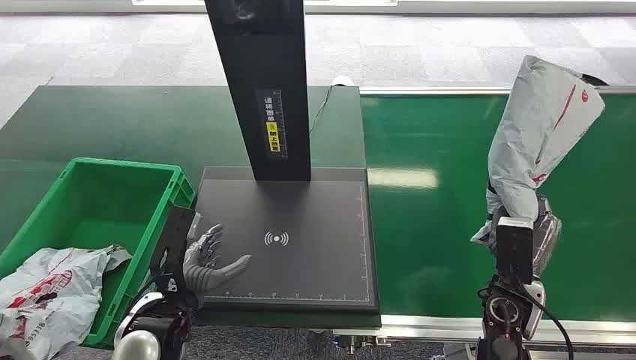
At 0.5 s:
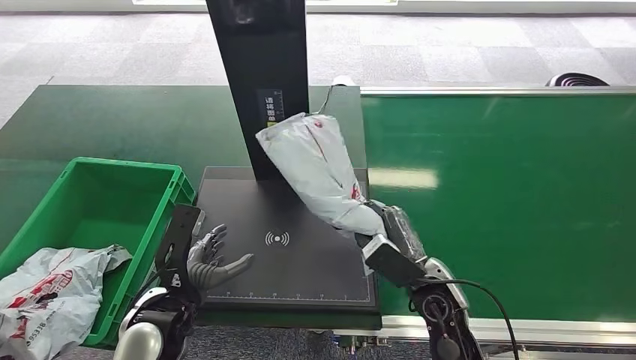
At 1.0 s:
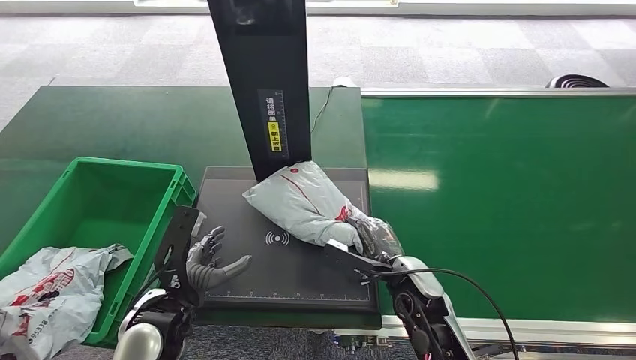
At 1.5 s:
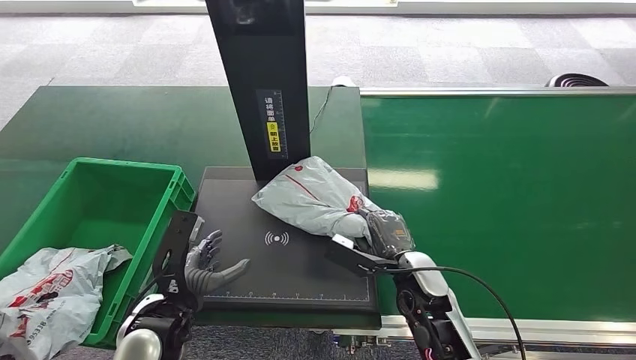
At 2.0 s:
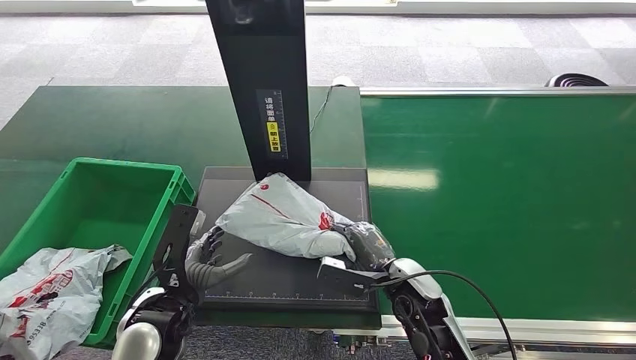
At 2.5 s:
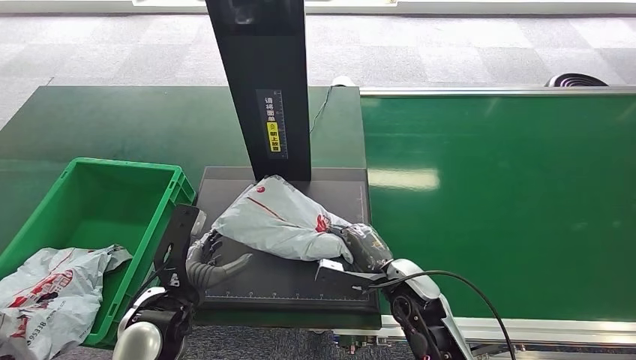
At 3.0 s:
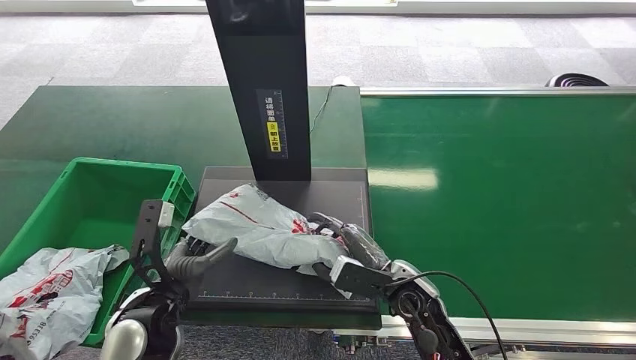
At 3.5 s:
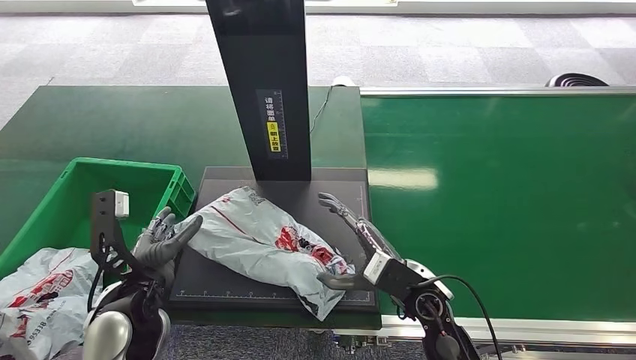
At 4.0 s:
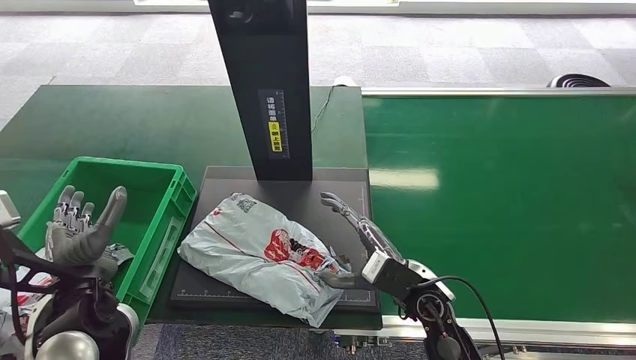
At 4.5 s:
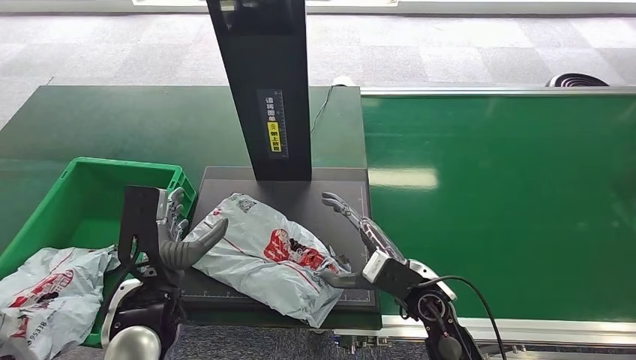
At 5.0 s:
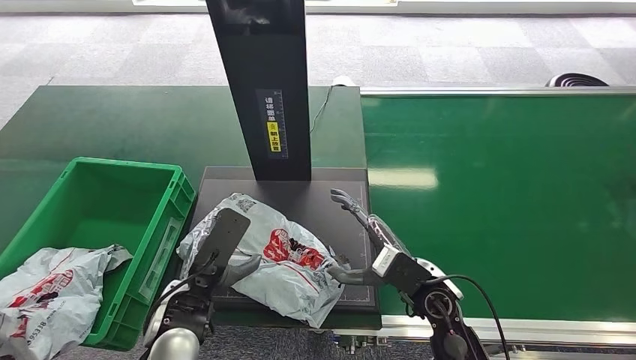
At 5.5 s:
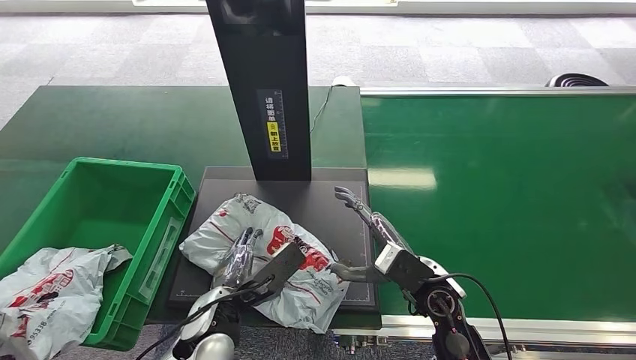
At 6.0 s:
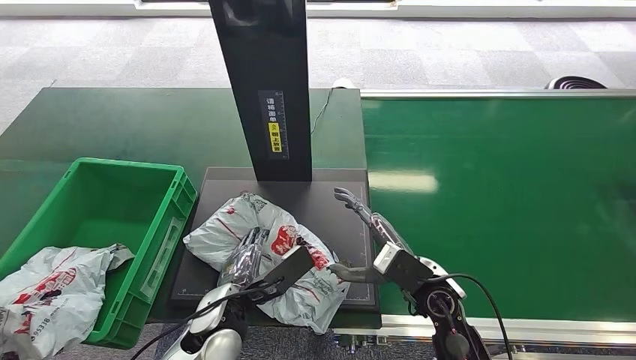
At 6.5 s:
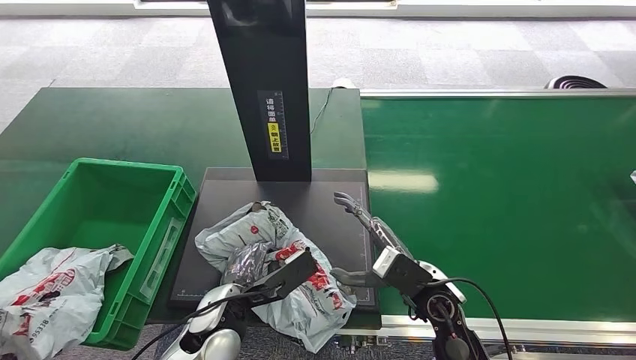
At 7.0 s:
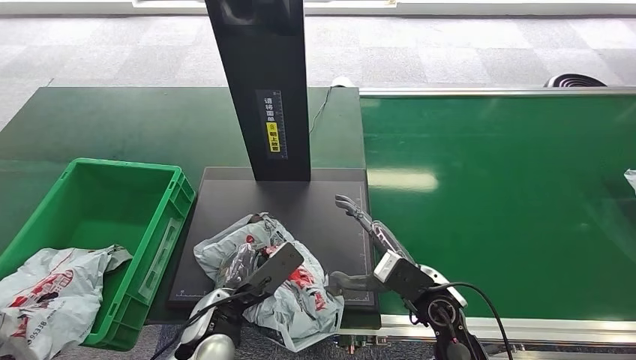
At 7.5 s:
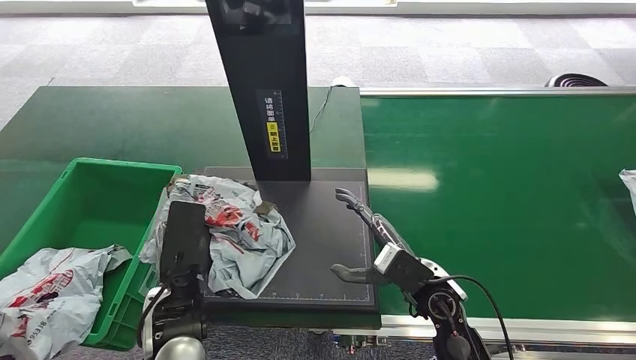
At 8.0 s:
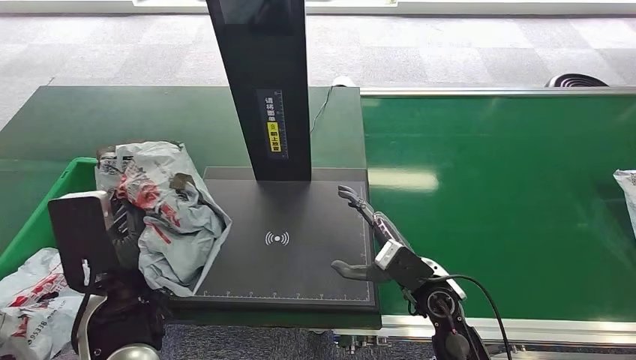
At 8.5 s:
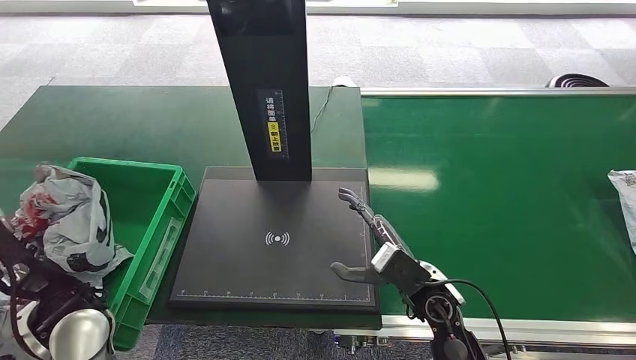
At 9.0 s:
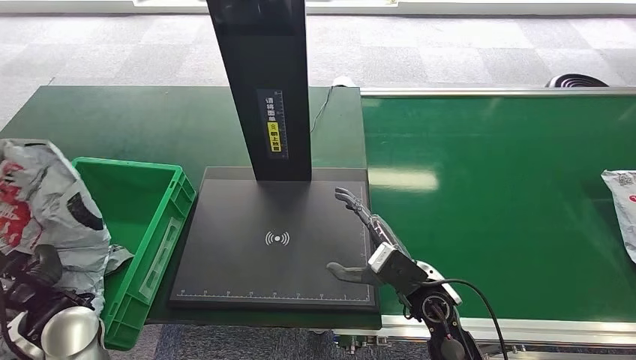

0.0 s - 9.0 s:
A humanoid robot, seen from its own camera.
4.5 s - 7.0 s: The left hand travels downward and to the right by about 10 cm.
7.0 s - 9.0 s: The left hand moves to the left, approximately 20 cm.
